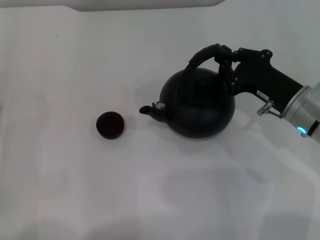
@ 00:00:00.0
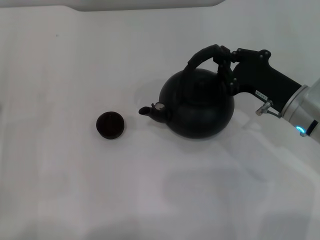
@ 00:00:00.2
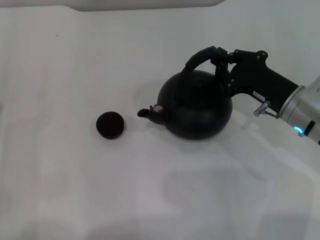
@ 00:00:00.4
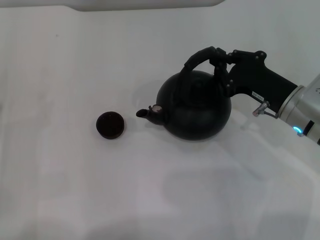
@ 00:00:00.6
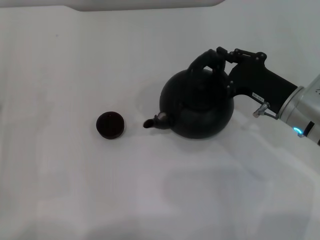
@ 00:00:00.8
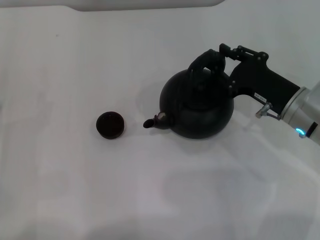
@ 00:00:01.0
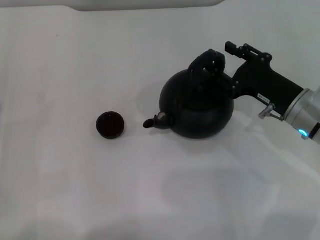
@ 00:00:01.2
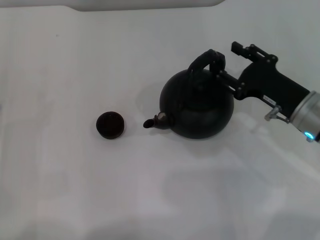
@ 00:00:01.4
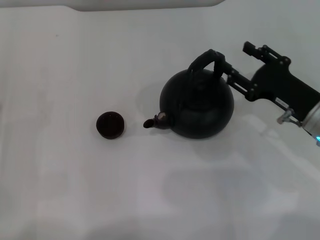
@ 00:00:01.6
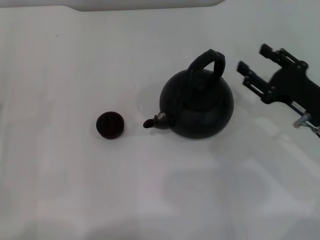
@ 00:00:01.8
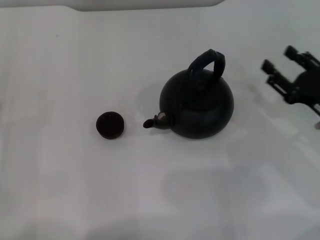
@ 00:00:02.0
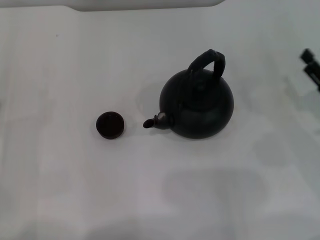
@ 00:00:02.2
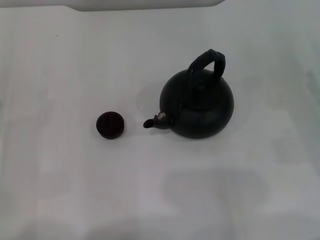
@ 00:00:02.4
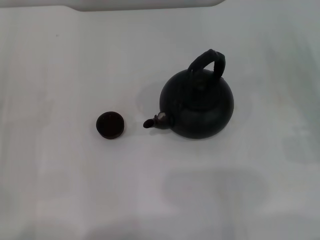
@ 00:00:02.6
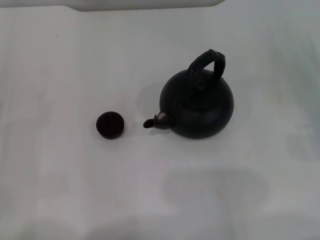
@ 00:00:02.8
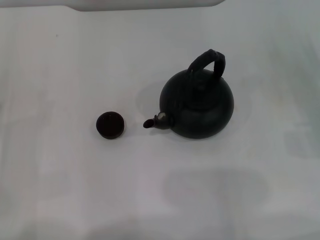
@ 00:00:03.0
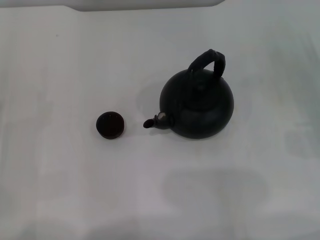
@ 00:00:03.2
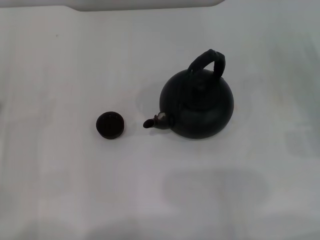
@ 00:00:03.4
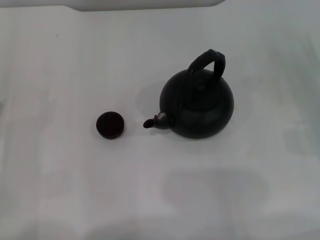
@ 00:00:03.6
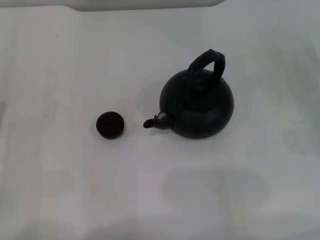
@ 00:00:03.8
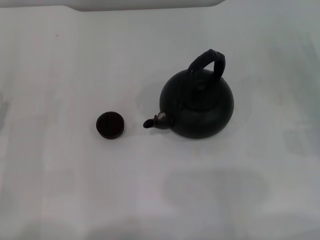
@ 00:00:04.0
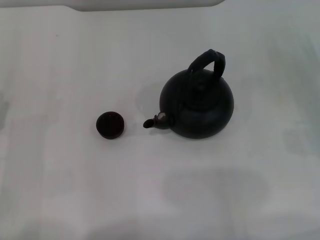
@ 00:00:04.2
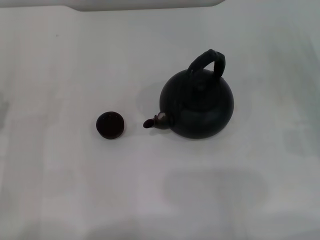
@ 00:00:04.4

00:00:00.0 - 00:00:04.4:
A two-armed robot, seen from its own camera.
Task of the whole recording: Grasp the handle of the teapot with one hand and pour tea into the teacup.
Step, 00:00:00.0 - 00:00:01.6: Put down the teapot with the right gripper.
00:00:00.0 - 00:00:01.4: The right gripper opens up.
00:00:01.4 - 00:00:03.0: The right gripper shifts approximately 15 cm to the right.
00:00:03.0 - 00:00:04.4: The two grippers keep their place.
